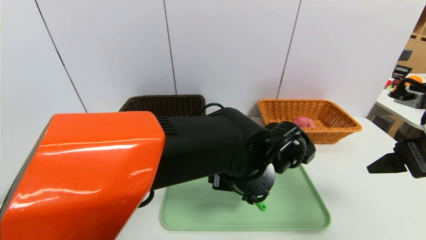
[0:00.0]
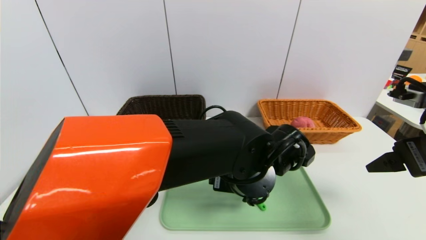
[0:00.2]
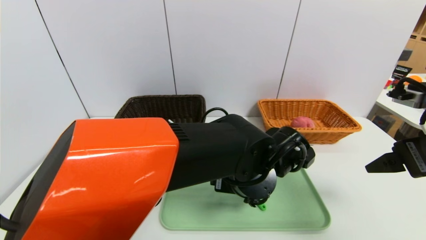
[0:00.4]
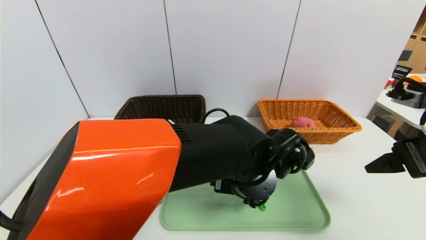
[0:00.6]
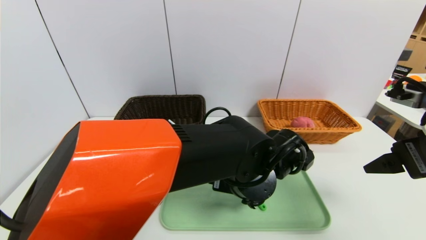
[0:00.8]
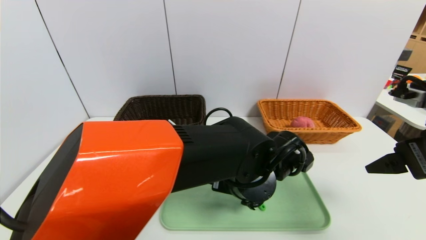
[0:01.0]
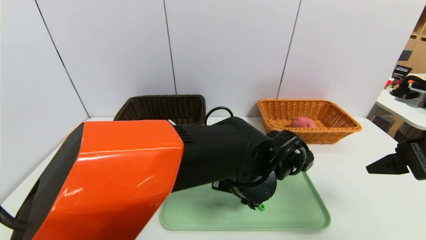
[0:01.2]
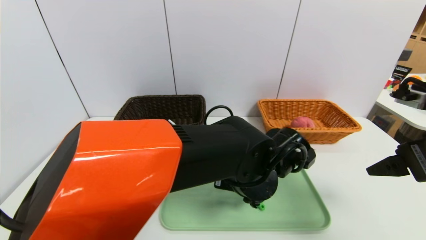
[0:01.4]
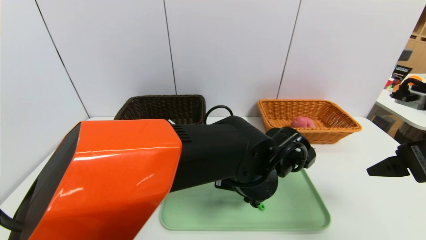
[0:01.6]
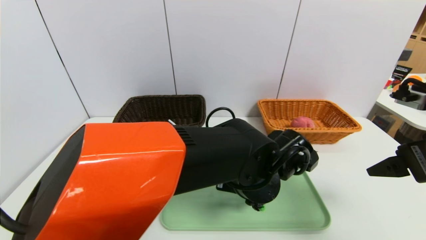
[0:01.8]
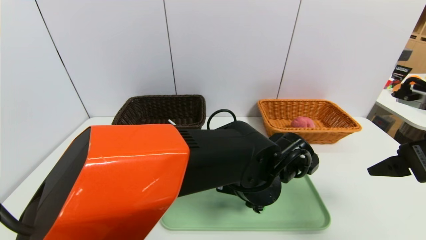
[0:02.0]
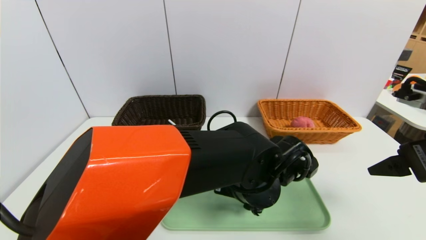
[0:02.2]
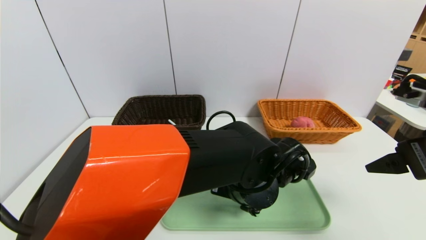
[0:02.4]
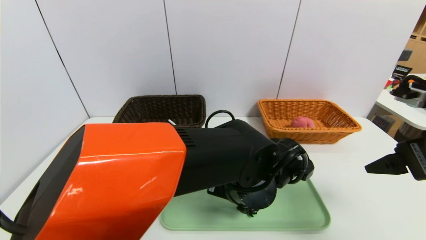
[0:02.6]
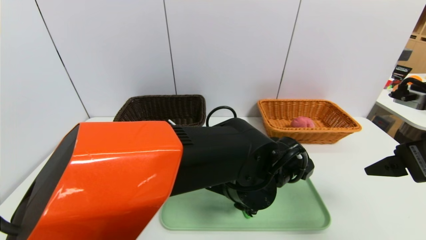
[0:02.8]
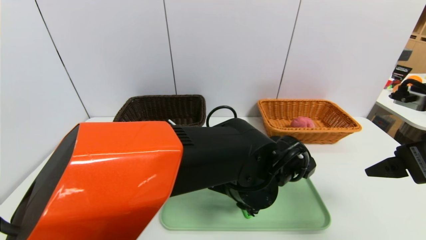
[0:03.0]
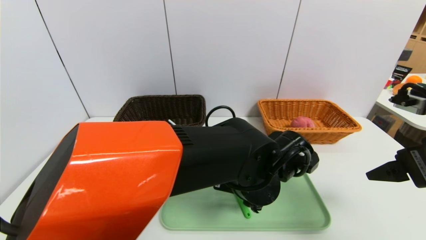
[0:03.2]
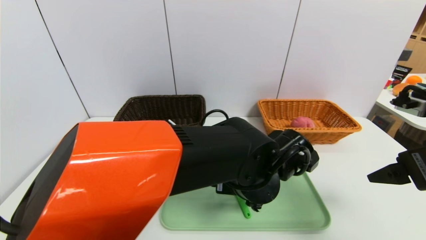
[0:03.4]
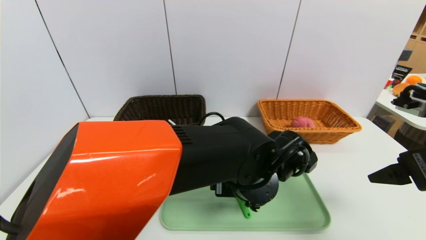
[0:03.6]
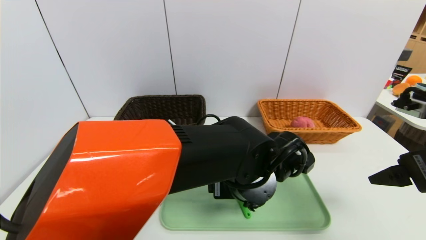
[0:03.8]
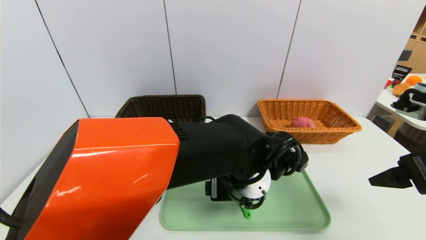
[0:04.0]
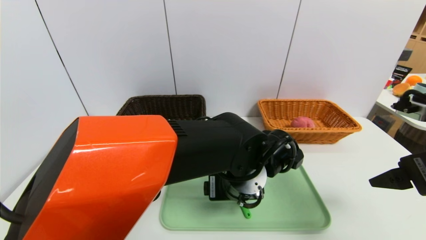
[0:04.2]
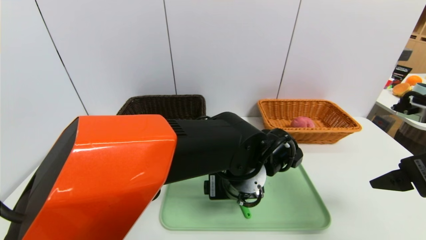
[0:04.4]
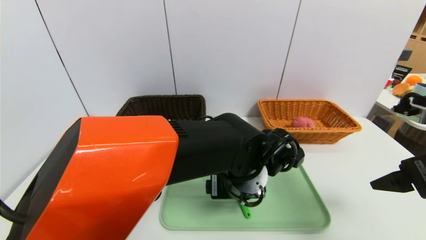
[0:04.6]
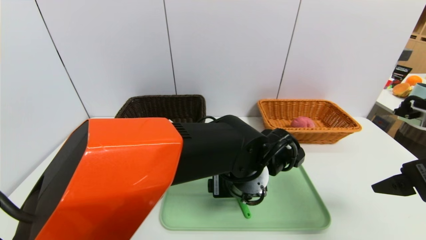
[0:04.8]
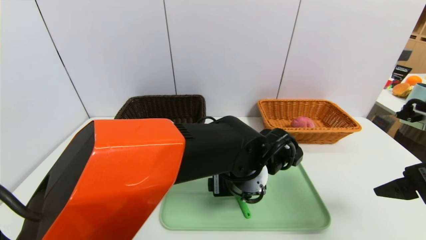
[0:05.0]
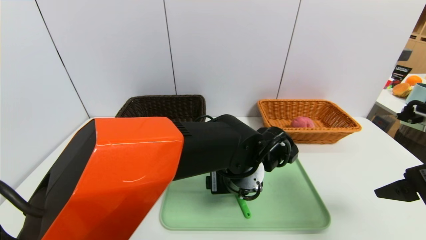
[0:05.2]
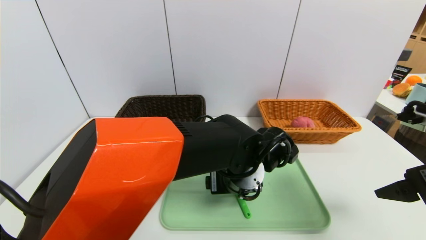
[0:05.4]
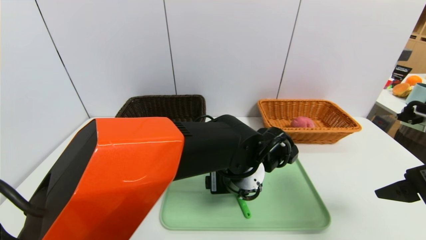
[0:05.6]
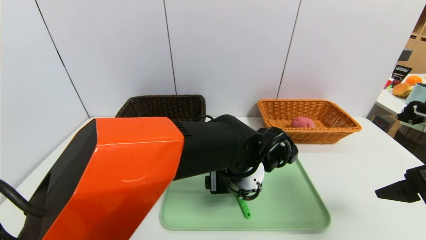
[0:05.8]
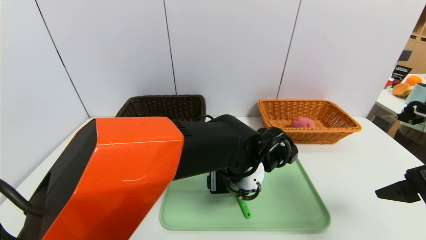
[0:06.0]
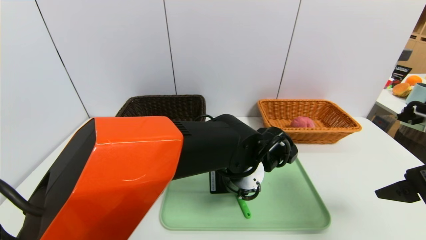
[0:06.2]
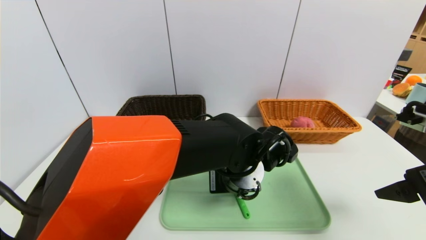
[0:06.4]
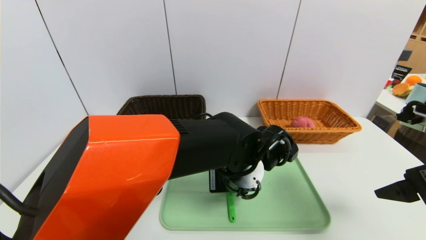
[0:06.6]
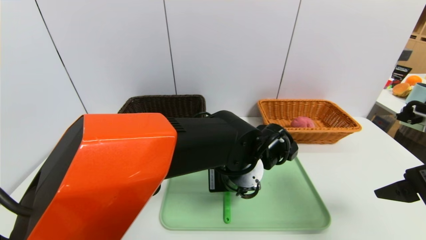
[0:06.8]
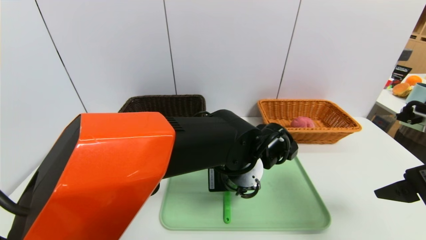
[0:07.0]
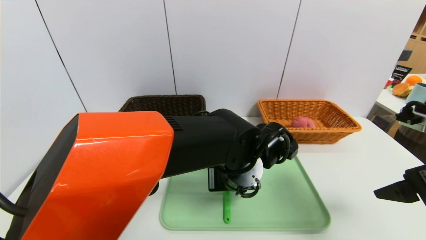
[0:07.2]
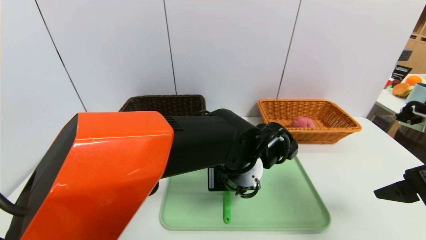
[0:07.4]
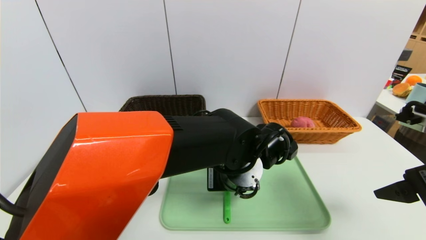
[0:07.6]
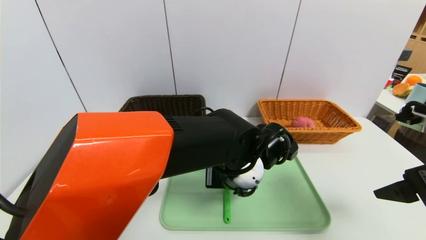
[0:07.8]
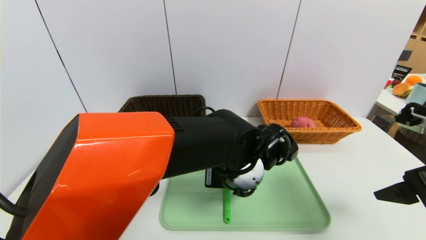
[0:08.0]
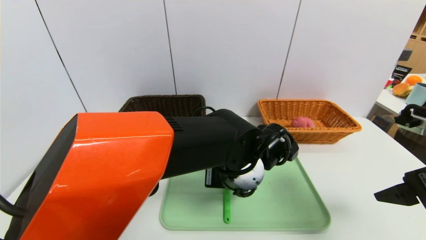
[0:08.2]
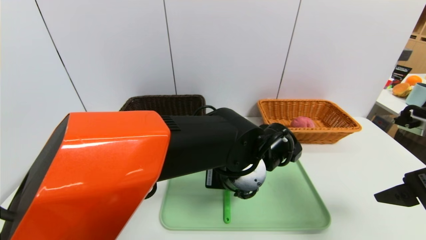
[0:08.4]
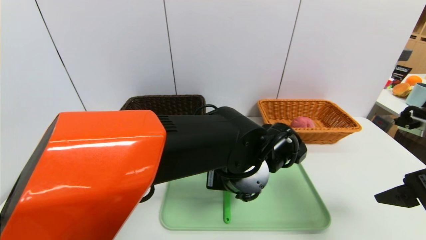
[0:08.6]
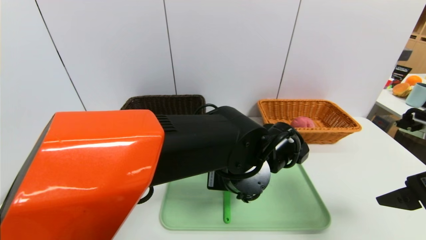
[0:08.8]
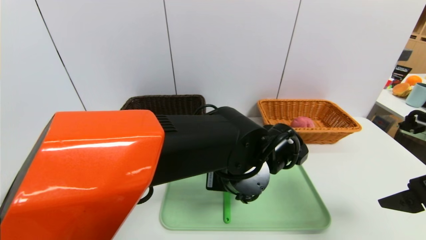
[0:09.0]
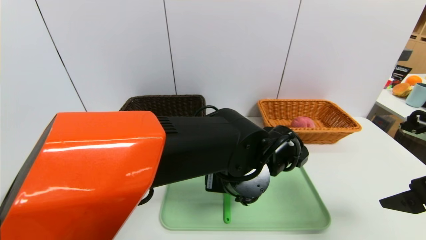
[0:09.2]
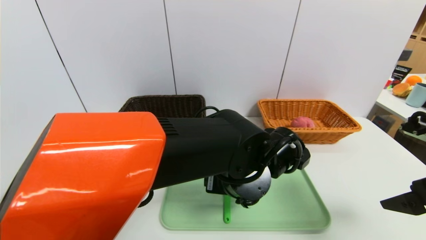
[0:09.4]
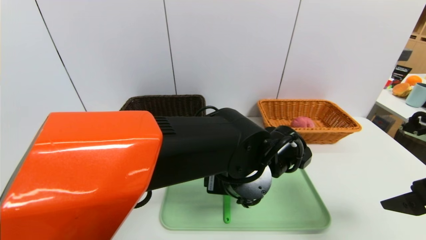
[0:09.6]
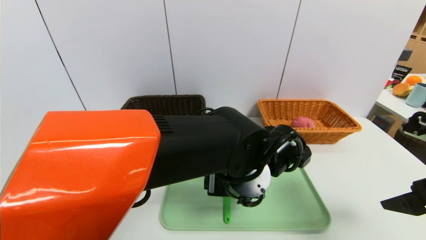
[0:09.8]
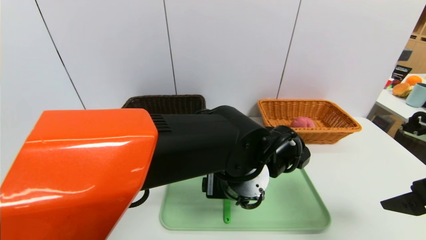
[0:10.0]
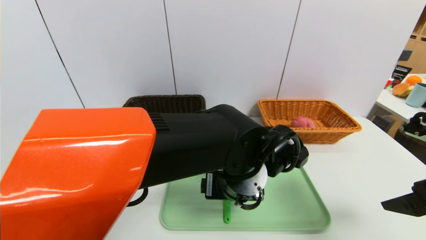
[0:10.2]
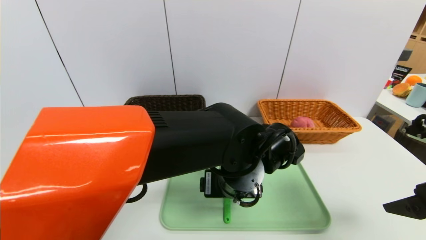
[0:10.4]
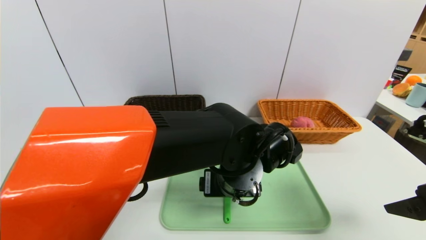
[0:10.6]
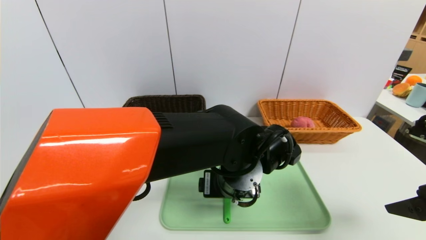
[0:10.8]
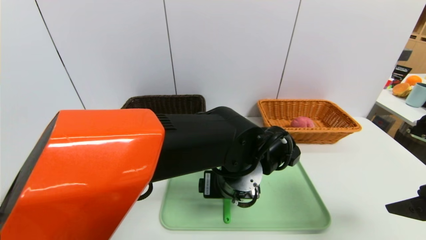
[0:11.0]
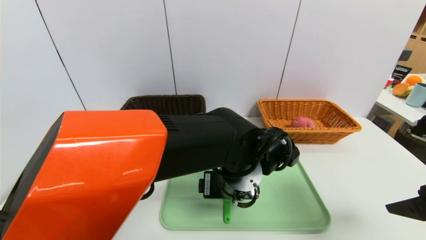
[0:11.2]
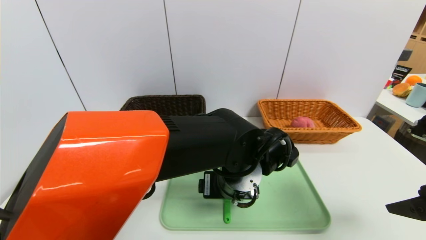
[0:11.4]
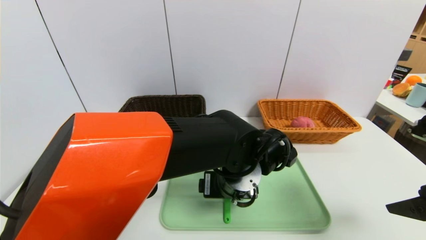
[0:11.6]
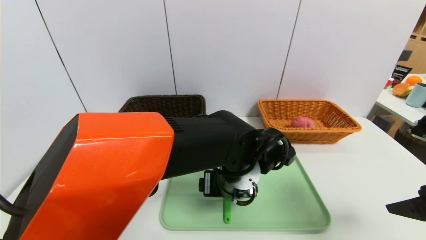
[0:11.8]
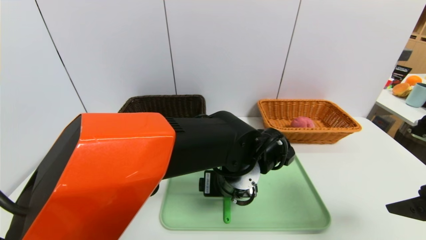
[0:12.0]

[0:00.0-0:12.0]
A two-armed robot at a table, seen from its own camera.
Task of the whole recording: place the food in the right basket with the right gripper, and place the non food items in the left basket with the left gripper.
0:00.0 to 0:03.0: The grippers move only a little.
0:04.4 to 0:06.0: The grippers move only a little.
0:06.0 to 0:07.6: The left gripper closes up.
0:07.6 to 0:09.0: The left gripper opens up.
0:09.0 to 0:12.0: The grippers move only a little.

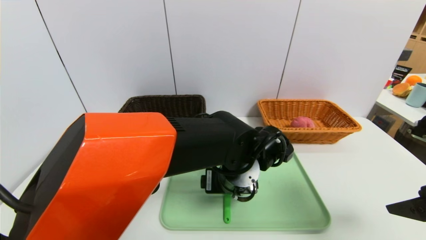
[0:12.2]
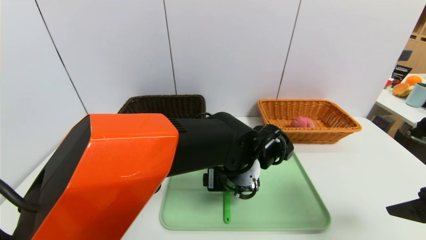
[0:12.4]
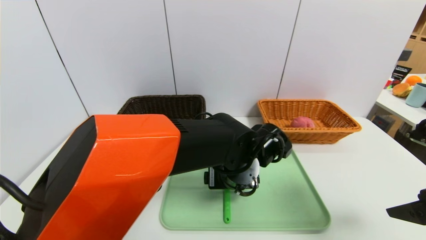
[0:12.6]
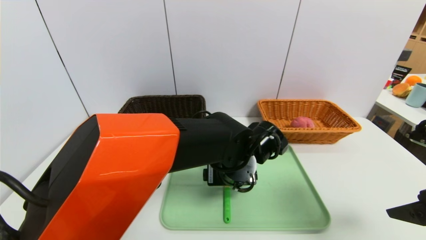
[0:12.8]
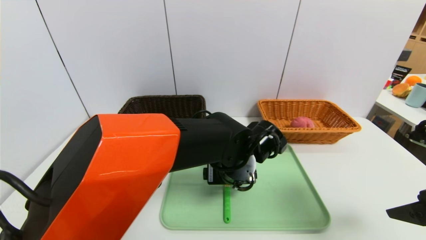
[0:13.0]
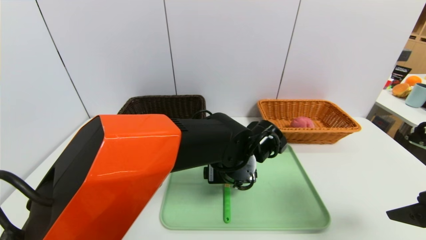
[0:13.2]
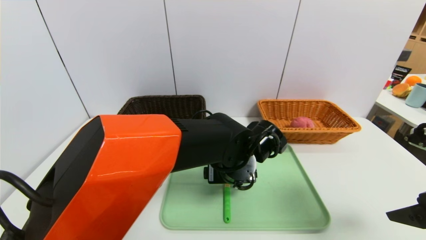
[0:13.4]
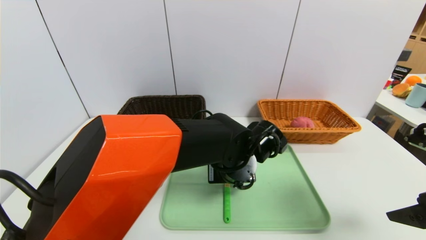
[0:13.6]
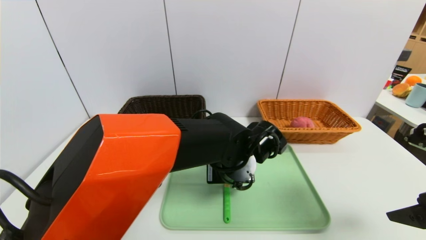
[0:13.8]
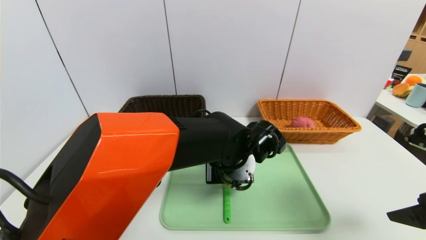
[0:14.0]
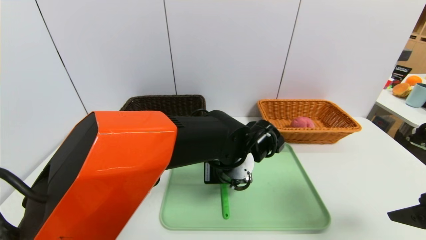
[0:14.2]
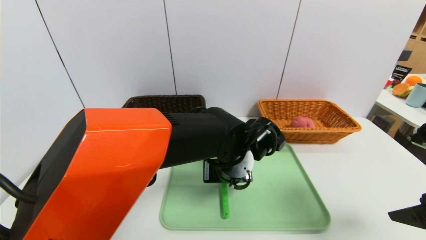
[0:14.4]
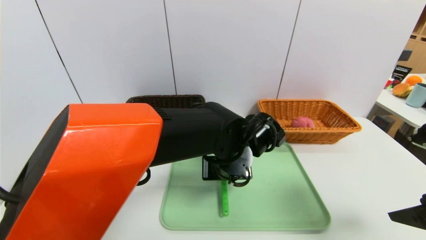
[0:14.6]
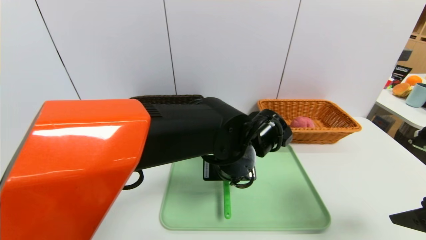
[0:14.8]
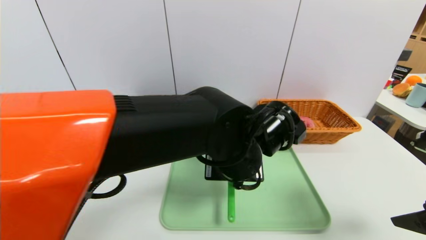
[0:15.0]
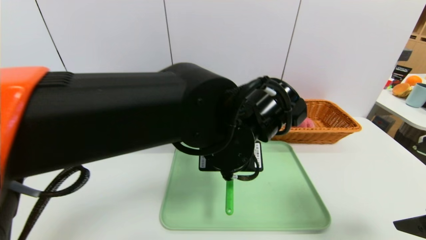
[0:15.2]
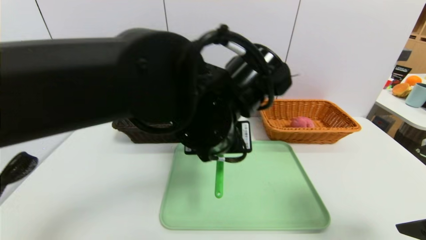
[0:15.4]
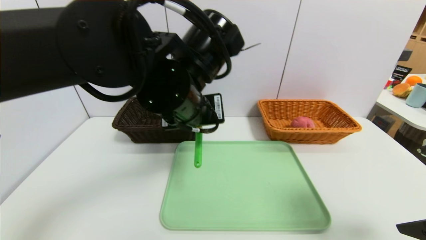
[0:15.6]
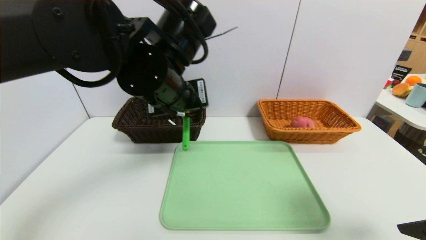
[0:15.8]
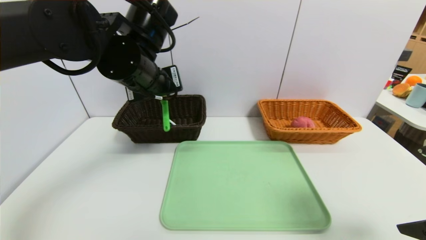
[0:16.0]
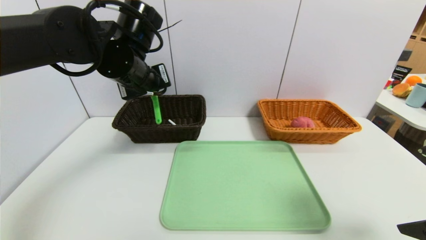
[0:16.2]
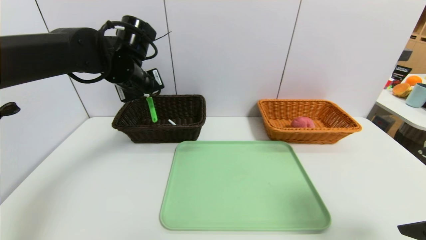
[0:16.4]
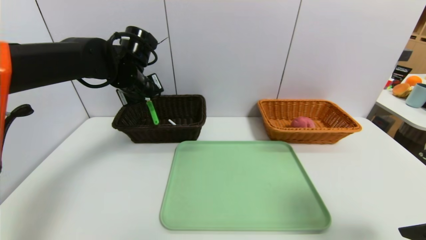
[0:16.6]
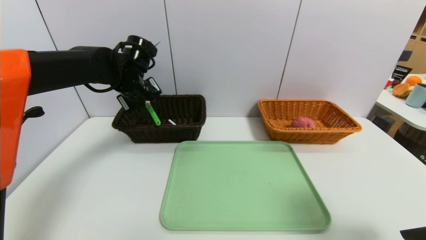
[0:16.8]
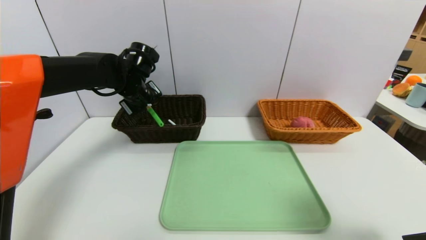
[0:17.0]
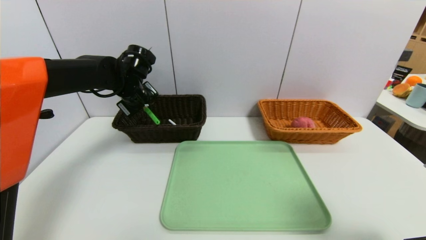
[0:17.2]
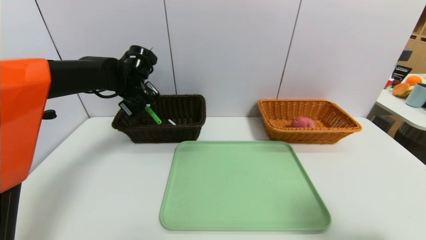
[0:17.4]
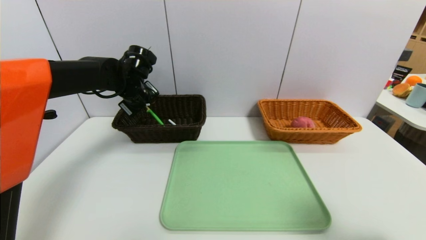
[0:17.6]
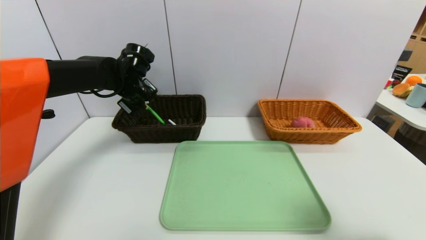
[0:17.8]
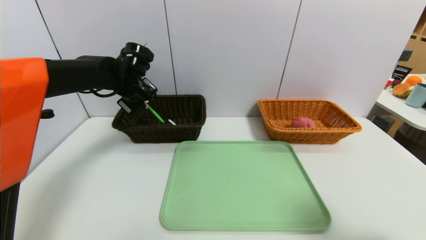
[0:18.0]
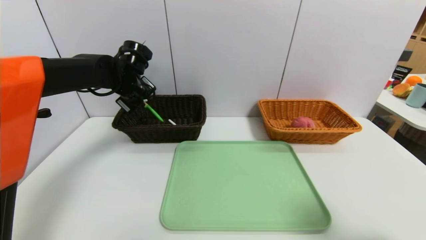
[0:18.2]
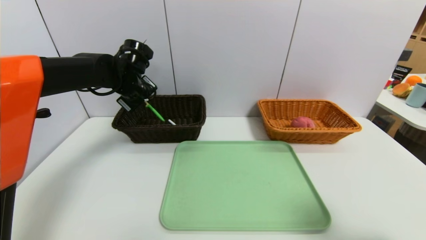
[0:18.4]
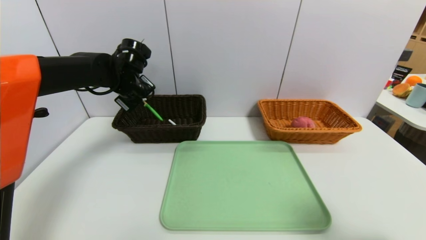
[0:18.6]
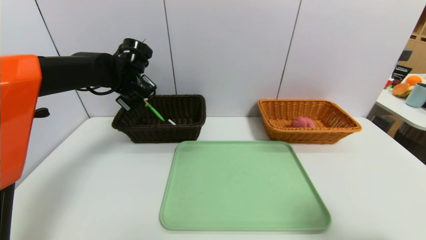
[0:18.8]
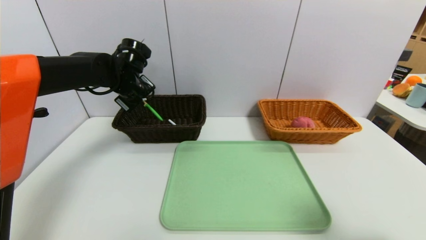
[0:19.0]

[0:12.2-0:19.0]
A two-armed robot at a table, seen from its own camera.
Task of the whole recording: place the food in the right basket with the right gripper, and place the non food items in the left basket with the left gripper.
0:12.2 to 0:13.6: The grippers move only a little.
0:13.6 to 0:15.0: The left gripper goes about 5 cm upward, and closes up.
0:15.0 to 0:16.2: The left gripper moves to the left, forward and upward, roughly 25 cm.
0:16.2 to 0:17.6: The left gripper moves forward and downward, some 10 cm.
0:17.6 to 0:19.0: The grippers stay close to where they were, moving slightly.
